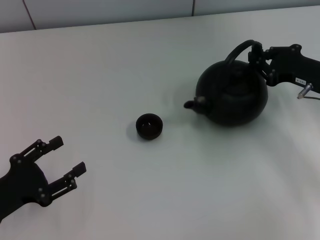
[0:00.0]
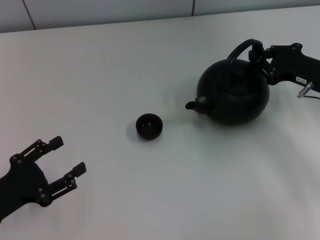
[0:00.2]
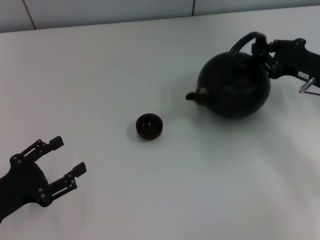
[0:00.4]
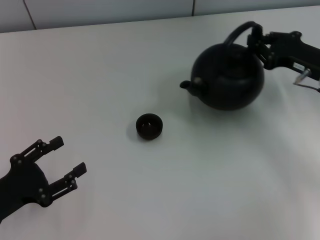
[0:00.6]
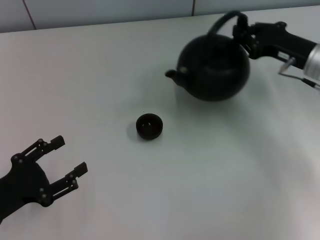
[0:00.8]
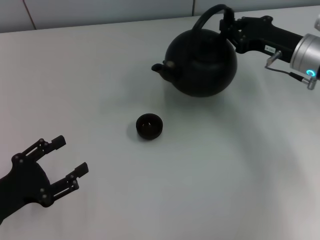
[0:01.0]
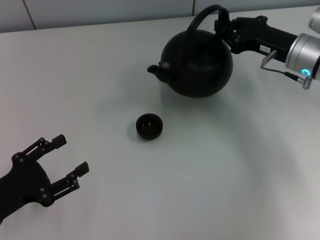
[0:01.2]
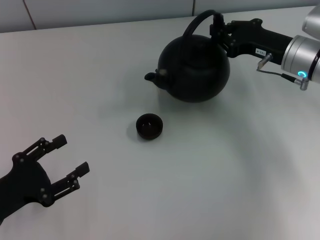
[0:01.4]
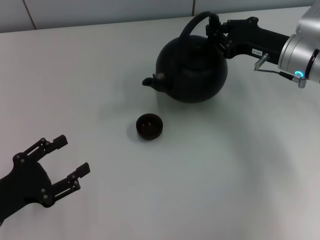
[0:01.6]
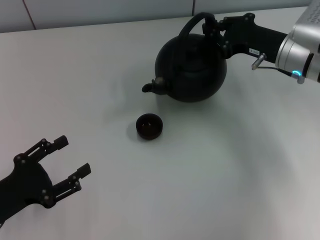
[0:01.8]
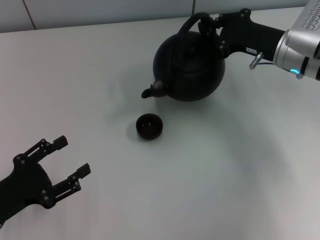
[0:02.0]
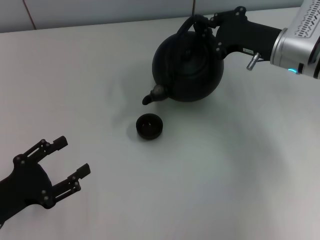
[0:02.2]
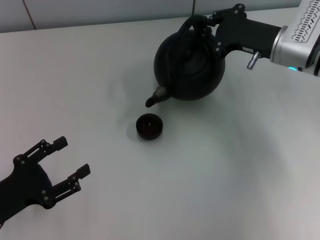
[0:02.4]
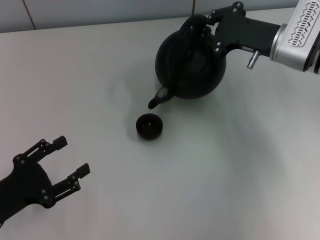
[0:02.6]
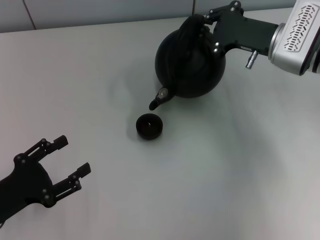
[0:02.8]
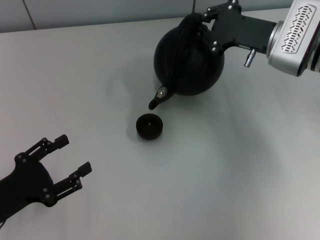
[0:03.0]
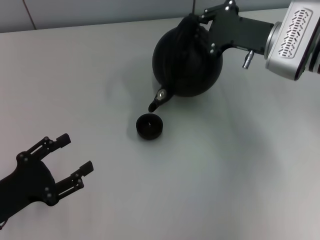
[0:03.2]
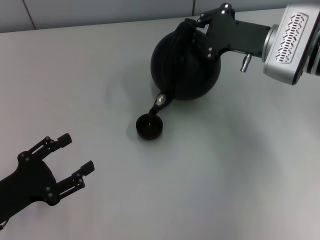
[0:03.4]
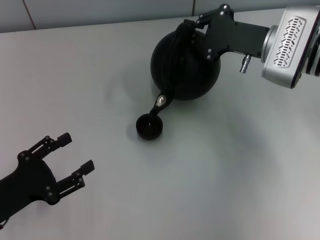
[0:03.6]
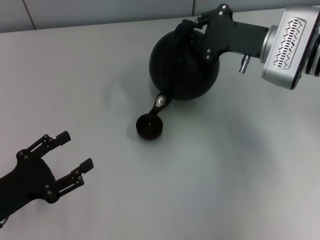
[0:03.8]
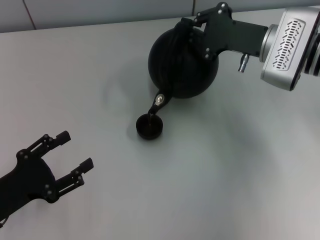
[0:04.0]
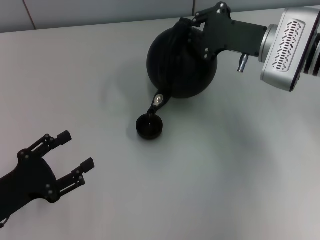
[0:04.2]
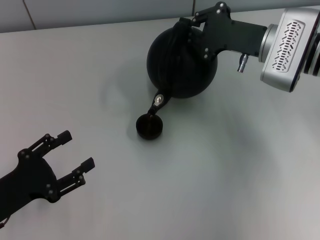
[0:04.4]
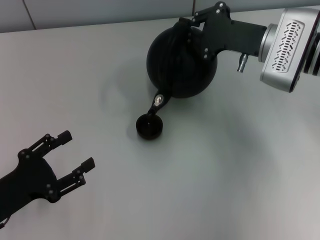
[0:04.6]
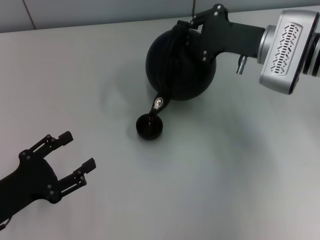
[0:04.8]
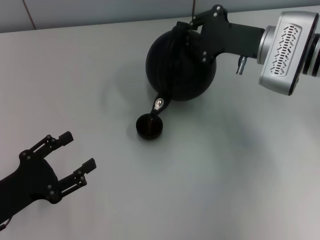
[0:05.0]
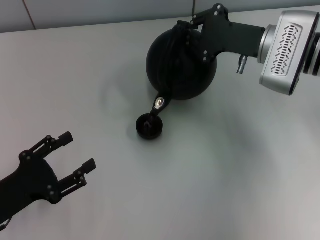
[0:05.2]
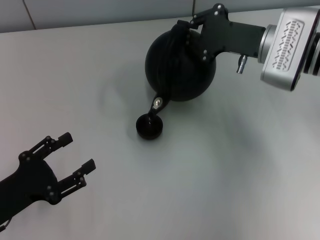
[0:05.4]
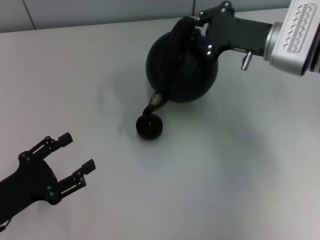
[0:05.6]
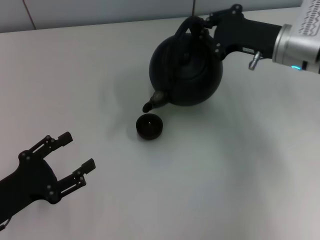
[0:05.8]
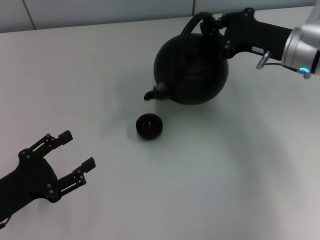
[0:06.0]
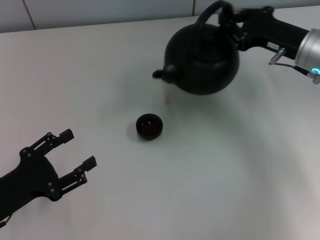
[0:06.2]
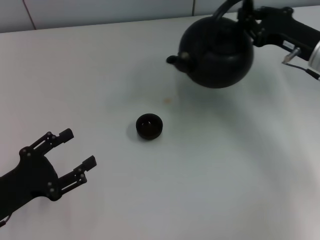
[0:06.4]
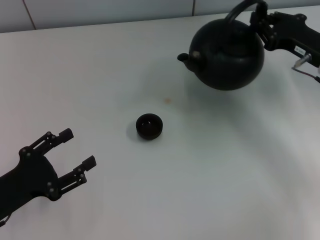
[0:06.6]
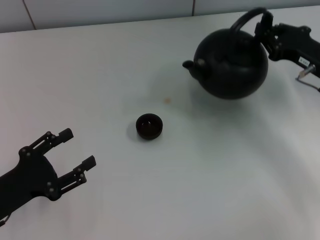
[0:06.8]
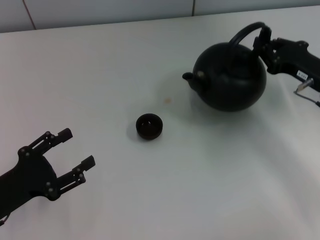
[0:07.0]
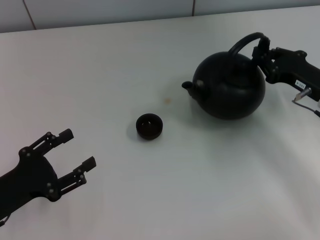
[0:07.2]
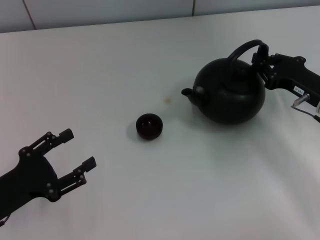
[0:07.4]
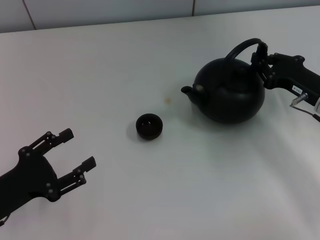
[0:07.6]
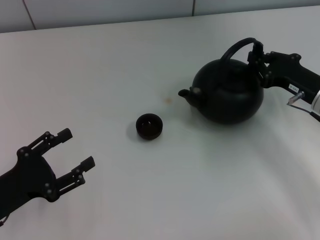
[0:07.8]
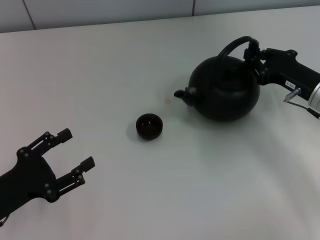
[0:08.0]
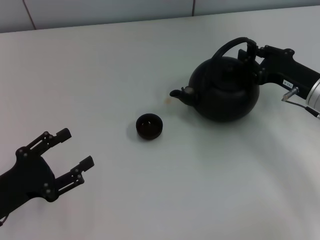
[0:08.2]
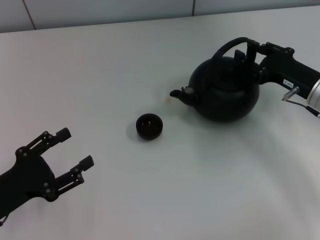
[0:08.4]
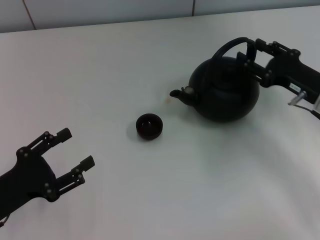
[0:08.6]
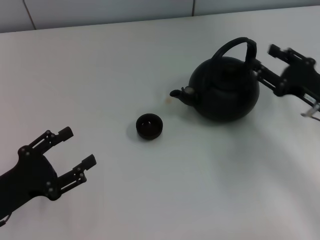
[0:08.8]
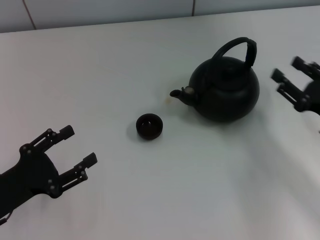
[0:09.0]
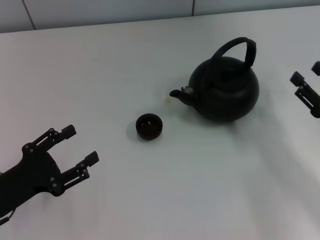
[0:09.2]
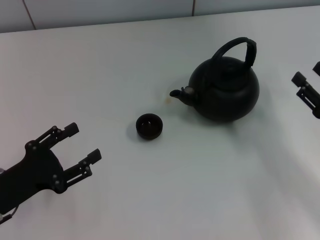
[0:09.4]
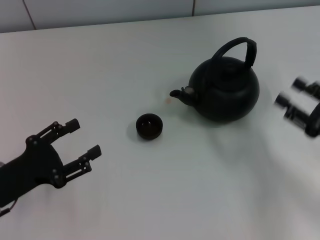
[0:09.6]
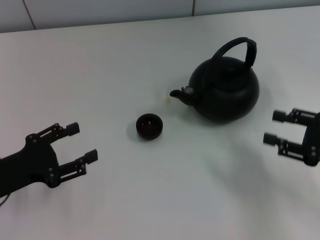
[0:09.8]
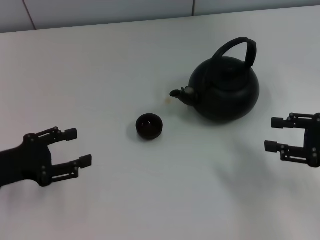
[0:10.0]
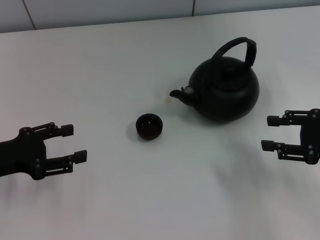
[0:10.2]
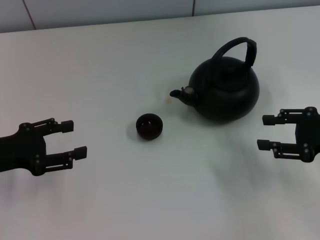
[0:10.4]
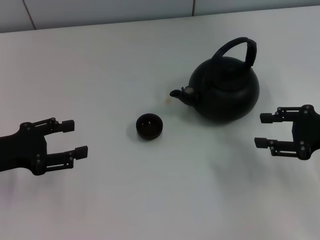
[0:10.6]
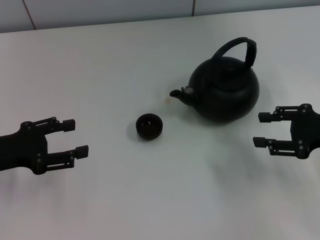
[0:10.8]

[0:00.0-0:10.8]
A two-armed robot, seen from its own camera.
Task of the whole recording: Grasp the handle of the teapot with one hand and pour tea into the teacup.
Step, 0:06.0 to 0:08.4: Put down the teapot with the right gripper.
0:00.0 to 0:01.6: The right gripper is displaced to the left by some 5 cm.
0:03.0 to 0:04.6: The grippers move only a little.
0:04.6 to 0:06.2: The right gripper heads to the right, covering some 5 cm.
0:06.2 to 0:07.8: The right gripper travels downward and backward by roughly 10 cm.
0:07.8 to 0:09.2: The right gripper moves backward, approximately 10 cm, and opens up.
0:09.2 to 0:10.8: The left gripper heads forward and upward, covering roughly 10 cm, while the right gripper heads upward, covering approximately 5 cm.

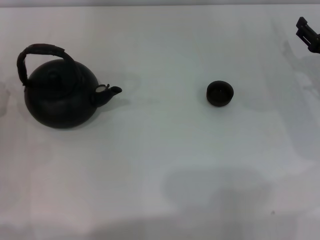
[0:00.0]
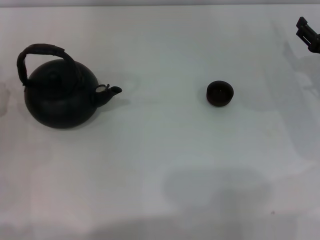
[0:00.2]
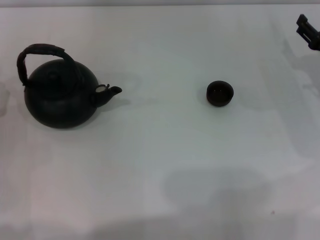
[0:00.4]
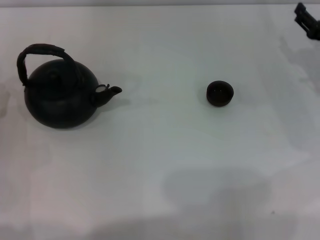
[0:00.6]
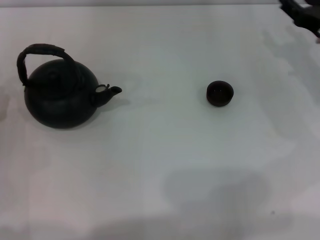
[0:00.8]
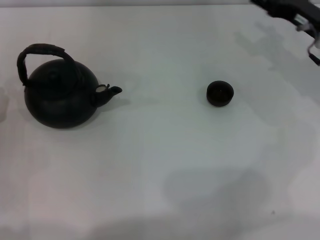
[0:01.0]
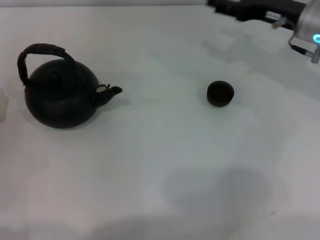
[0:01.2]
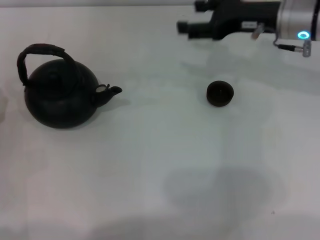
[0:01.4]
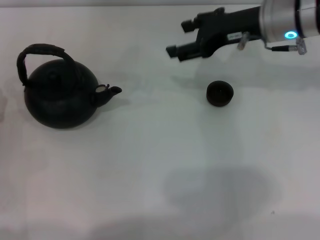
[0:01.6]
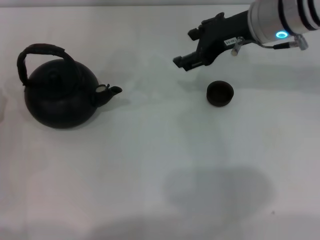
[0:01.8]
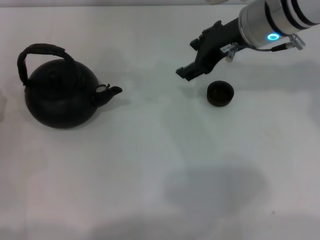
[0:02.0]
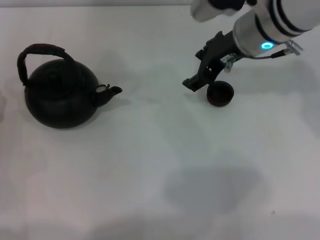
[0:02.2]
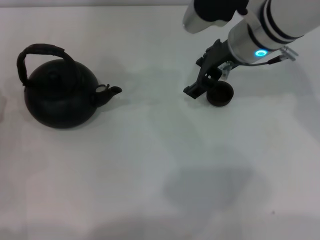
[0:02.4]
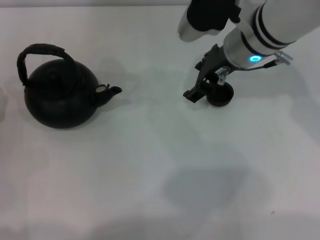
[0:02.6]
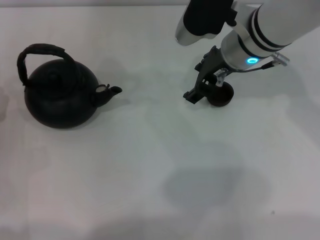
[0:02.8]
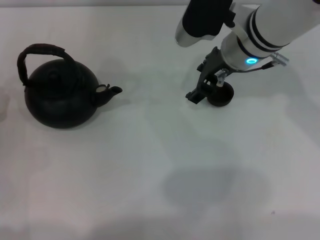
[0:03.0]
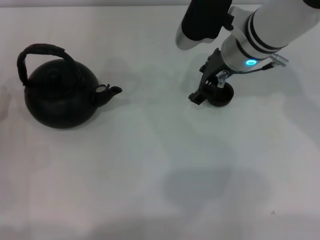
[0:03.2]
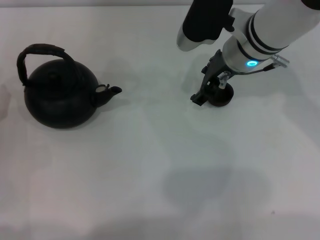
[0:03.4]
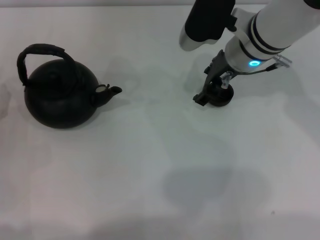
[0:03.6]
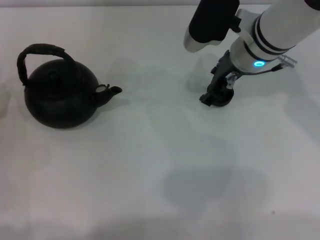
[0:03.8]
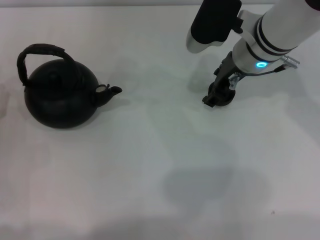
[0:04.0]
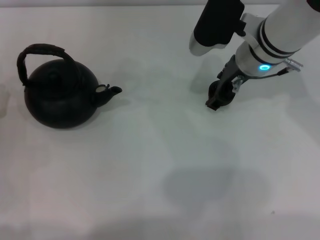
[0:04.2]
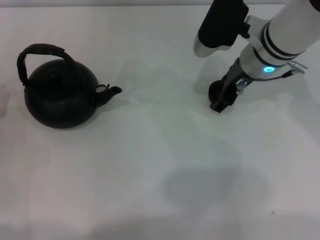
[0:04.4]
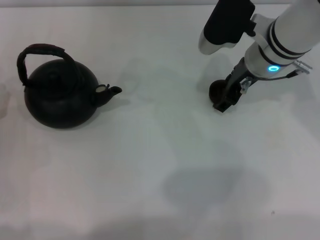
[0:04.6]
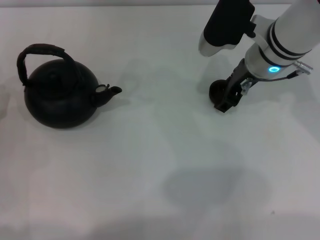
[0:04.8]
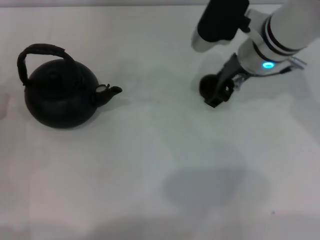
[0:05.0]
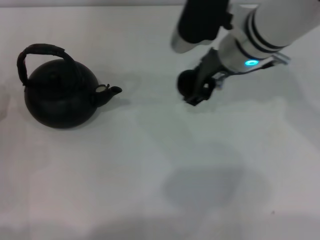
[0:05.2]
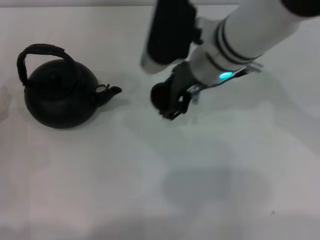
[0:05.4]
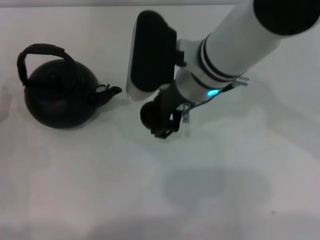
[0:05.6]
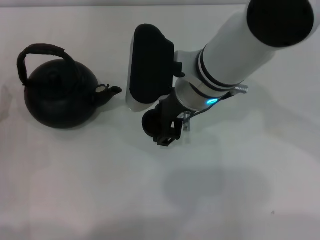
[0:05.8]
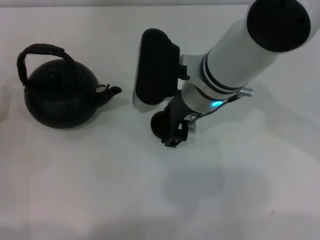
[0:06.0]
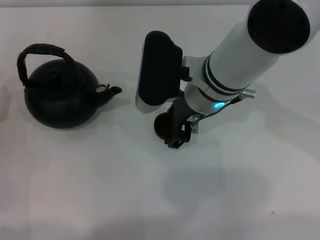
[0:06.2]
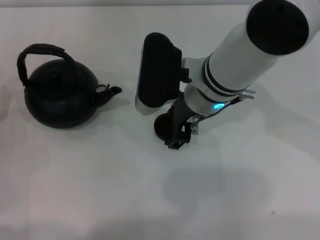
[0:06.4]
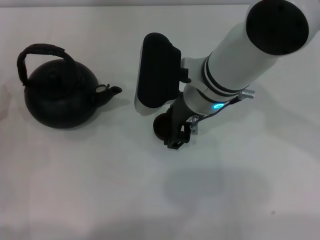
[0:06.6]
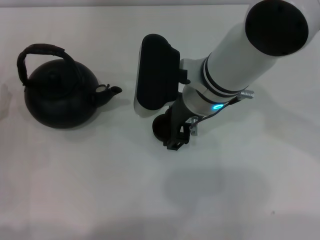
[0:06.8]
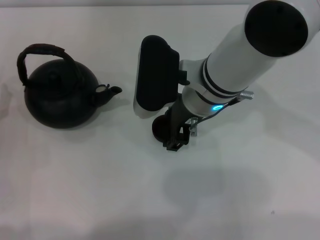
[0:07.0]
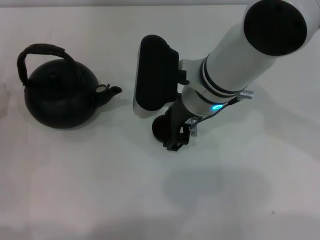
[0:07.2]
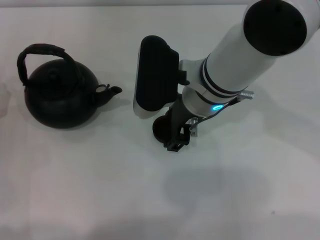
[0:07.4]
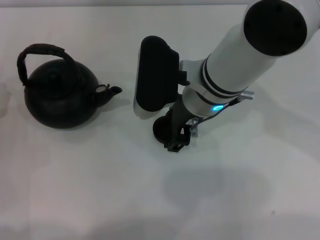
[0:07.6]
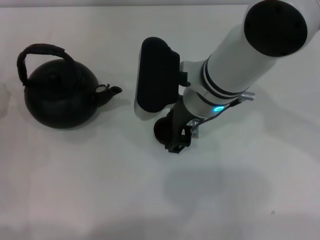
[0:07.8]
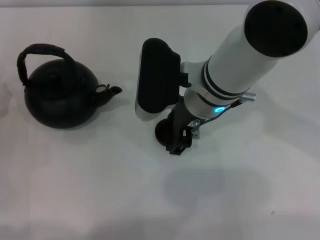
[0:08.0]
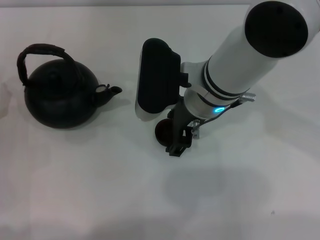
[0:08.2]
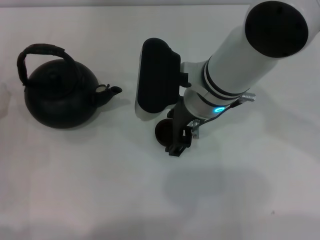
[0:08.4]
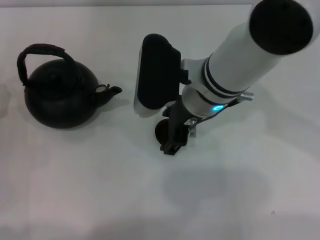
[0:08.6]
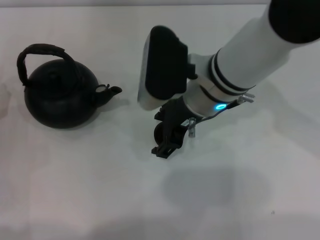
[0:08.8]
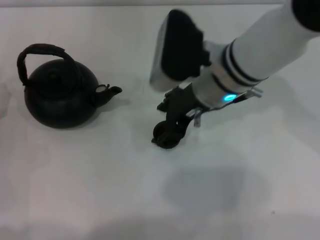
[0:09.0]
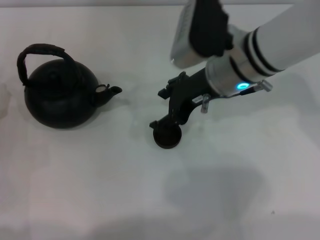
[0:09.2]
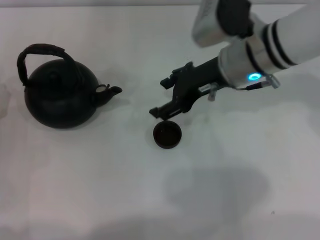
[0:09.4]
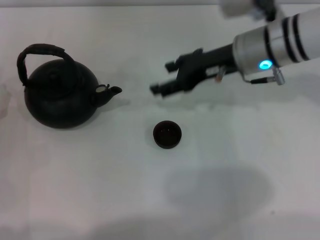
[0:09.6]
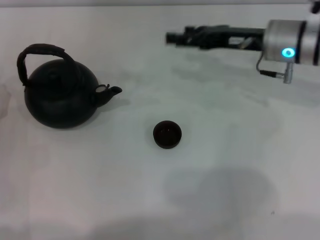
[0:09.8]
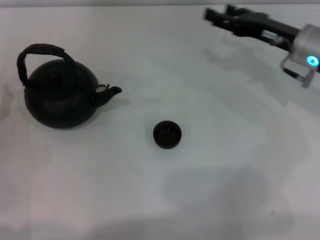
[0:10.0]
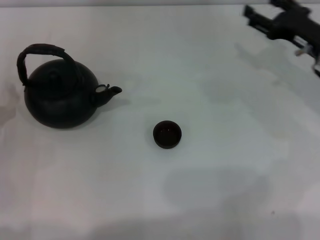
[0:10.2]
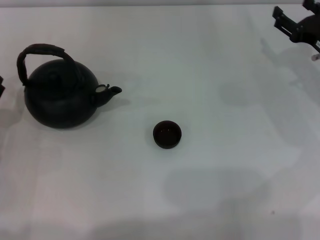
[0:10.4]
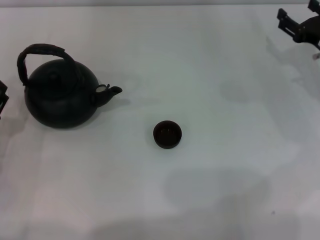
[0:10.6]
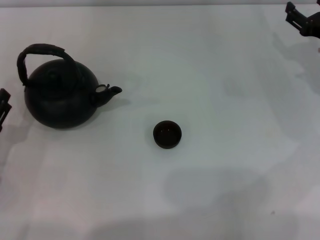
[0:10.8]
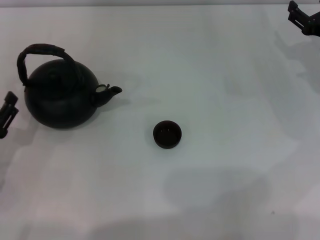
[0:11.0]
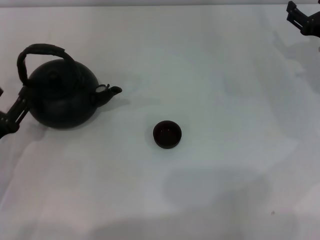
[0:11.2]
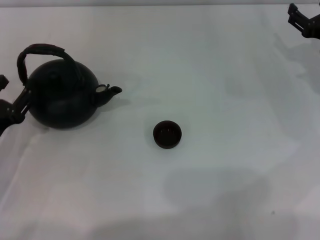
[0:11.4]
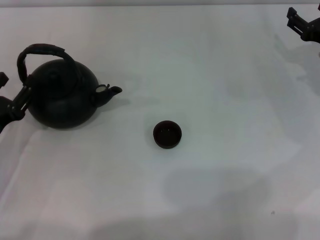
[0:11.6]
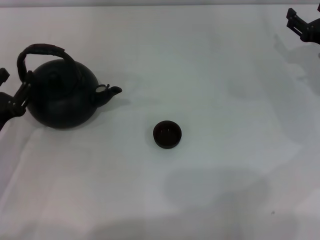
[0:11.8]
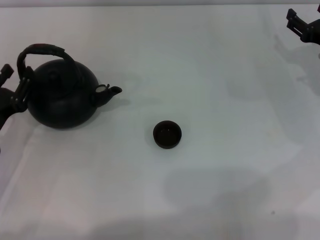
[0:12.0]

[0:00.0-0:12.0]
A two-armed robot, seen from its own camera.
Task of the whole recording: Grasp the handle of the teapot with one hand and pour tea into the teacup.
Step, 0:00.0 to 0:04.8: Pick up the teacup with the right gripper.
Step, 0:05.0 to 0:09.2: Place the teacup in the center of view with the right gripper.
0:00.0 to 0:01.6: The right gripper travels to the left, upward and forward by roughly 20 cm.
0:01.6 to 0:03.0: The right gripper heads to the left, covering about 5 cm.
0:03.0 to 0:04.4: The grippers make only small movements.
0:04.4 to 0:06.0: The right gripper shifts about 10 cm to the left and backward.
0:06.0 to 0:07.6: The right gripper opens.
0:07.6 to 0:09.0: The grippers move only a little.
0:09.0 to 0:10.4: The right gripper heads to the right, covering approximately 20 cm.
0:10.4 to 0:12.0: The grippers stay close to where they were, moving slightly.
